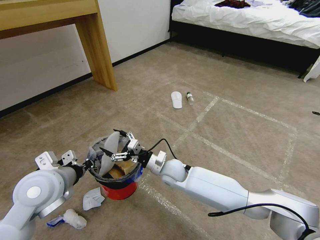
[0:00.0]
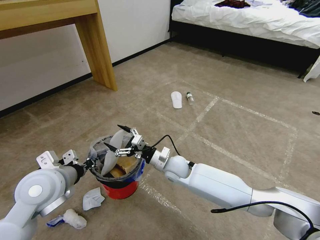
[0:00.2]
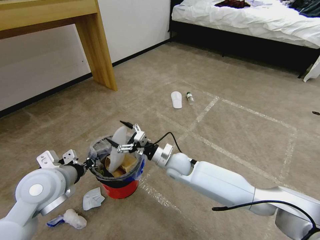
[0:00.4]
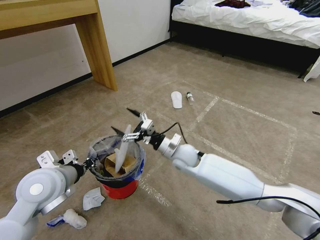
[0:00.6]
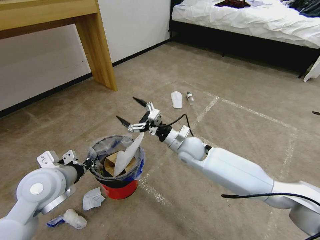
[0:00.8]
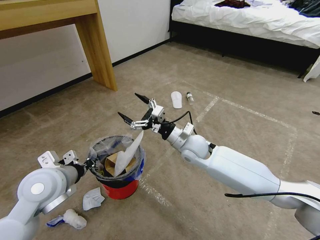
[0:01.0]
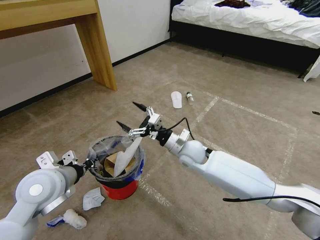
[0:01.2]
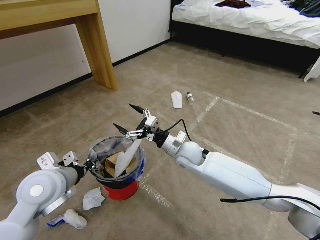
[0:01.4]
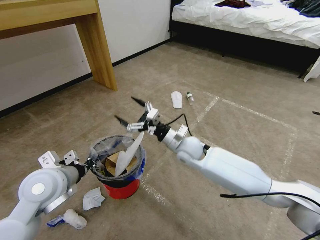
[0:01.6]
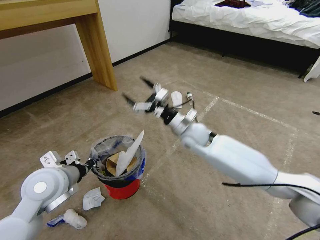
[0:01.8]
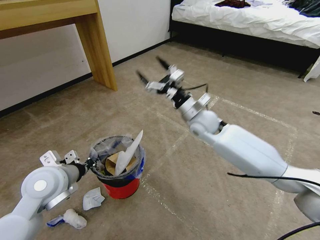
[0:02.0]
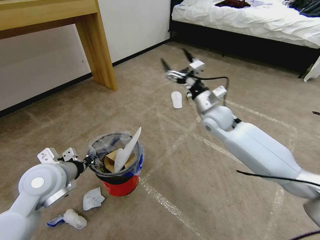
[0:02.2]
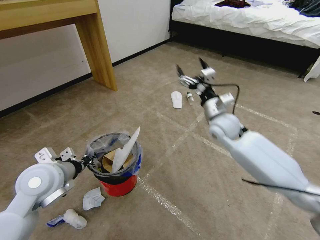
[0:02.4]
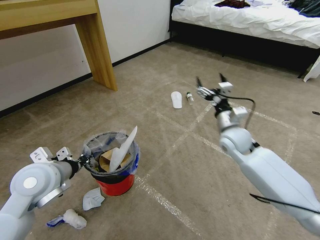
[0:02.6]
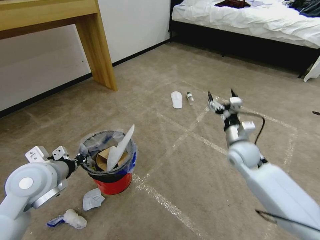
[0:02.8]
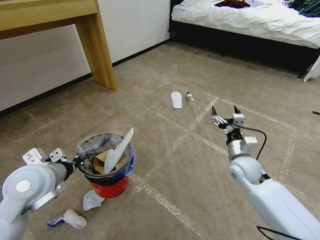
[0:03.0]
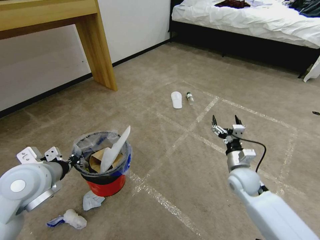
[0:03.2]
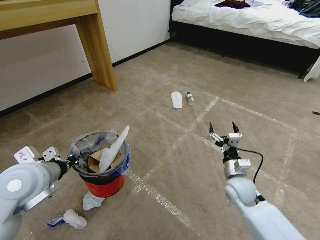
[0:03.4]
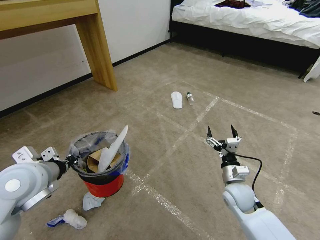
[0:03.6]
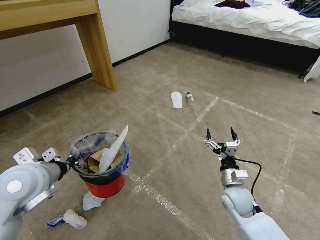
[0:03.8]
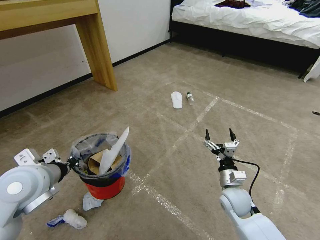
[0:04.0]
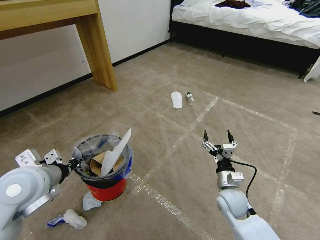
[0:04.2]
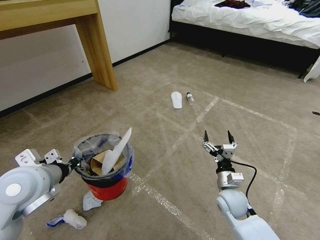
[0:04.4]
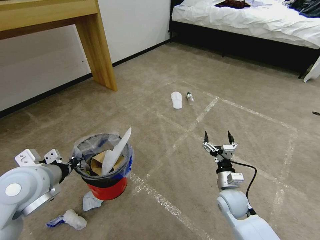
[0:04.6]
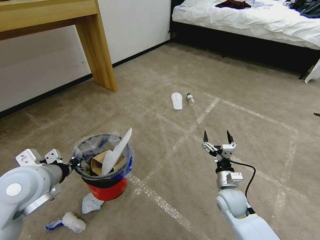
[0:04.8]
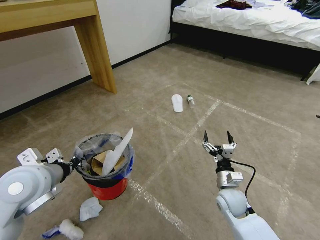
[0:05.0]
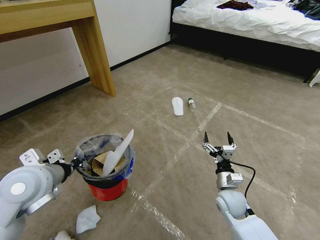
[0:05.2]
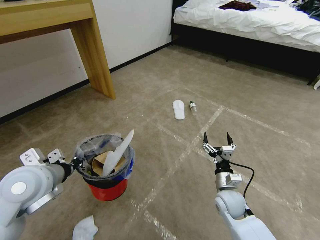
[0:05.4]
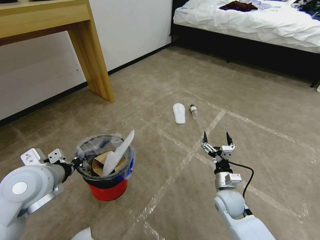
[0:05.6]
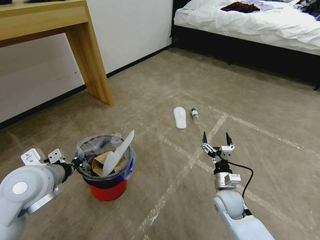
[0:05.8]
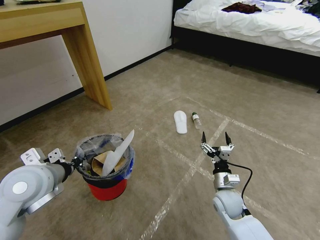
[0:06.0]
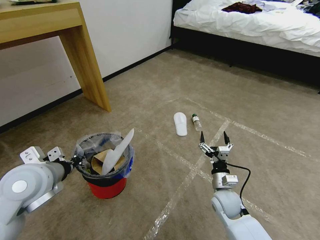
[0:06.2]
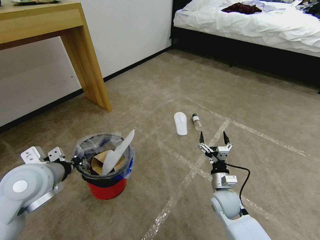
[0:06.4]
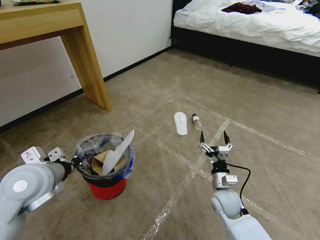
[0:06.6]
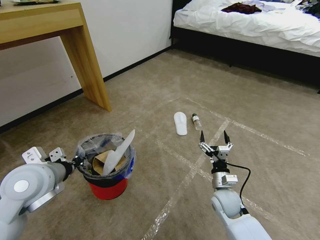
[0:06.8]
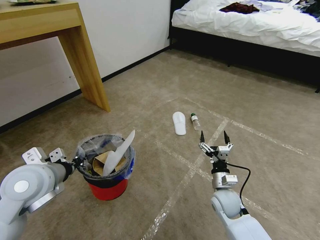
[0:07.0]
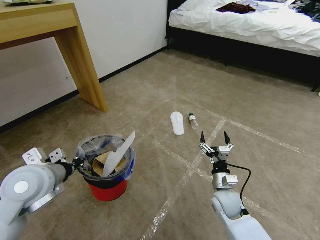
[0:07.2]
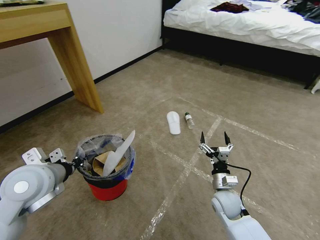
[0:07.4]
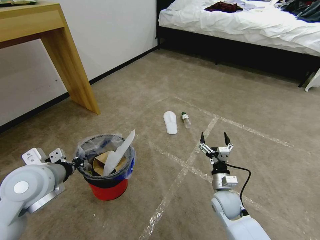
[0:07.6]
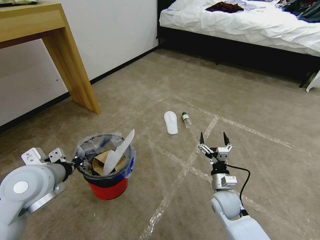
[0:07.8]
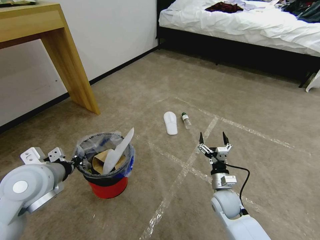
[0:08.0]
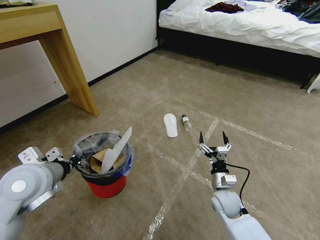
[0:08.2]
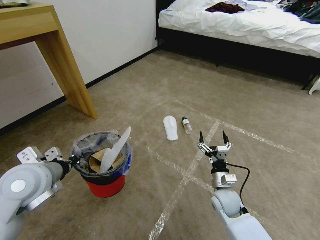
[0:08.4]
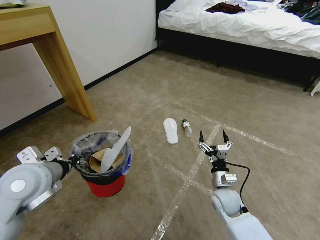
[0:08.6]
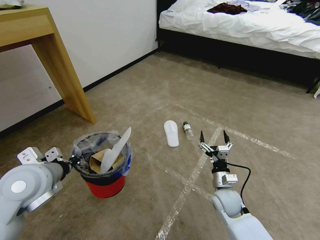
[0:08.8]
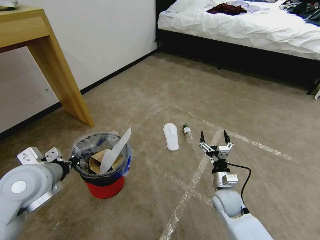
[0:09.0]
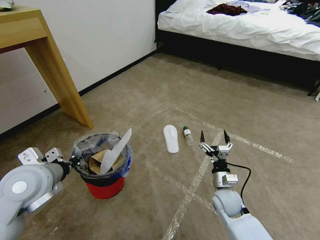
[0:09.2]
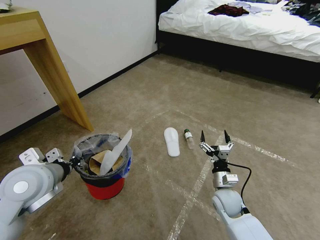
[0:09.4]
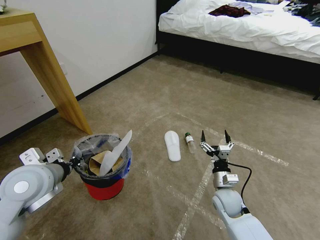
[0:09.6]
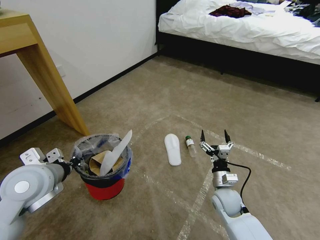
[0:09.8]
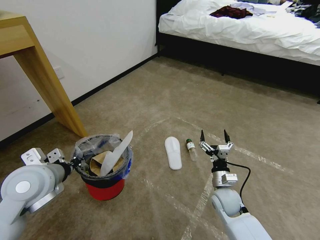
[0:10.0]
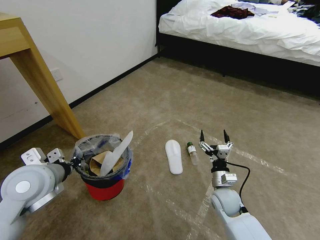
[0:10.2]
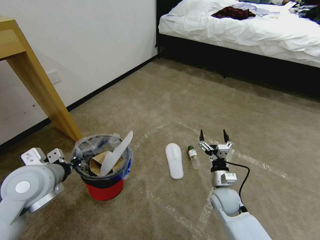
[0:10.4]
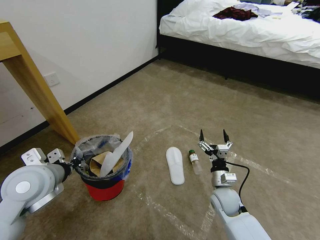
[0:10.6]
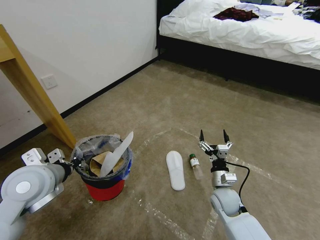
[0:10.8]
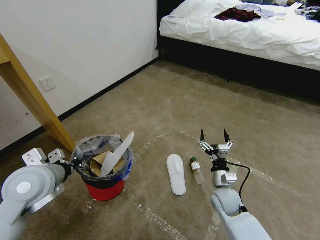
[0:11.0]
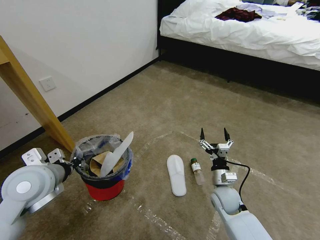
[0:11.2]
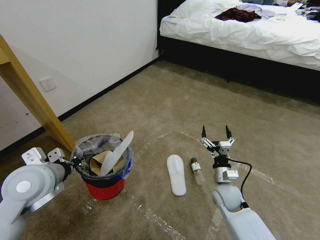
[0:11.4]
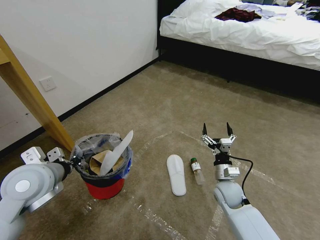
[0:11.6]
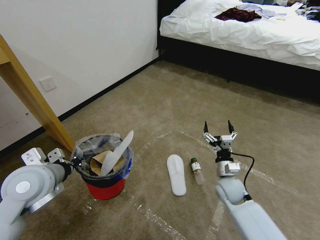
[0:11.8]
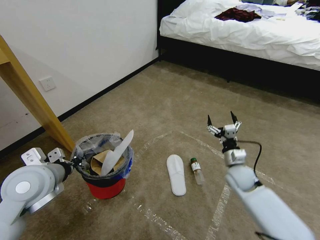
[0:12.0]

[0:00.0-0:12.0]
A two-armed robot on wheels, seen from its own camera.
Task of the whole recording: Pick up the trash bin and place the garbage on the floor into it.
0:00.0 to 0:01.6: The right gripper moves upward and to the right, approximately 10 cm.
0:01.6 to 0:03.0: The right gripper travels to the right by about 20 cm.
0:03.0 to 0:04.4: The right gripper goes approximately 10 cm downward and backward.
0:06.0 to 0:07.6: The two grippers keep their place.
0:10.4 to 0:12.0: The right gripper shifts approximately 10 cm forward and to the right.

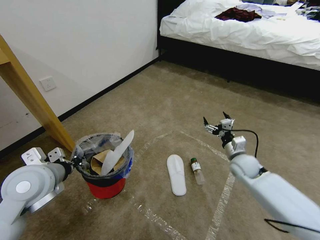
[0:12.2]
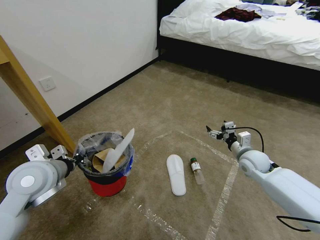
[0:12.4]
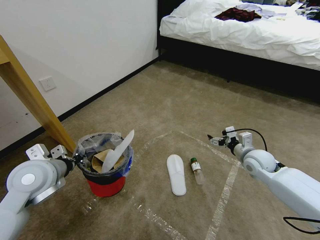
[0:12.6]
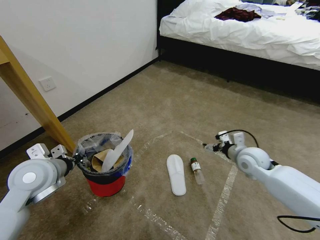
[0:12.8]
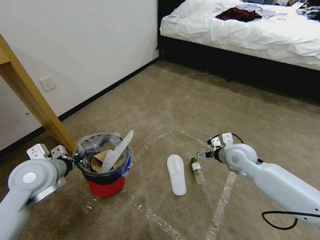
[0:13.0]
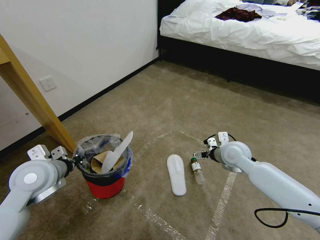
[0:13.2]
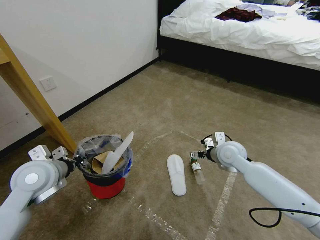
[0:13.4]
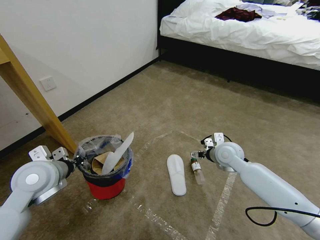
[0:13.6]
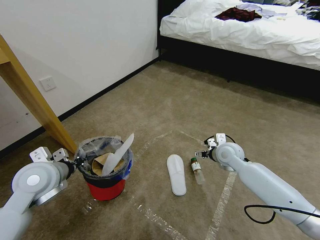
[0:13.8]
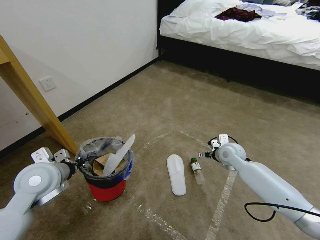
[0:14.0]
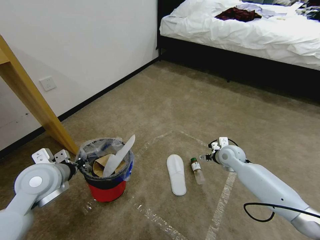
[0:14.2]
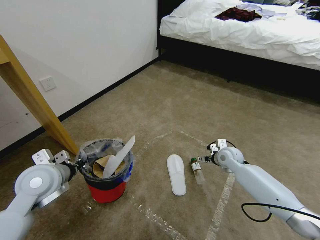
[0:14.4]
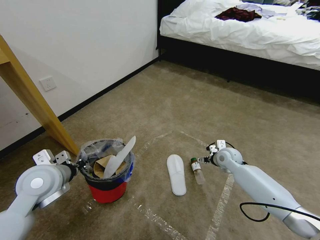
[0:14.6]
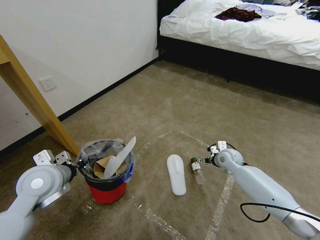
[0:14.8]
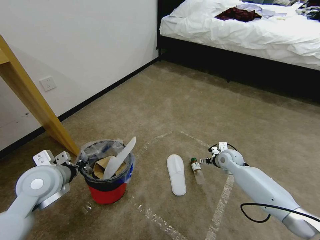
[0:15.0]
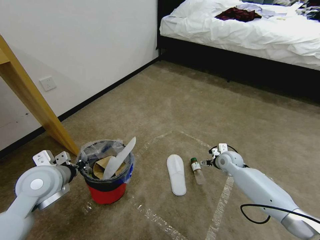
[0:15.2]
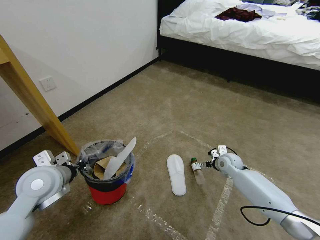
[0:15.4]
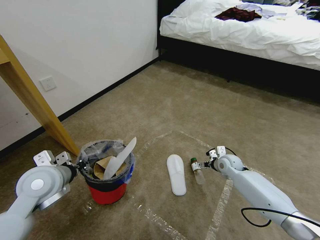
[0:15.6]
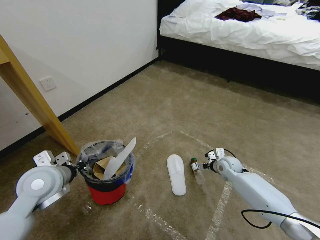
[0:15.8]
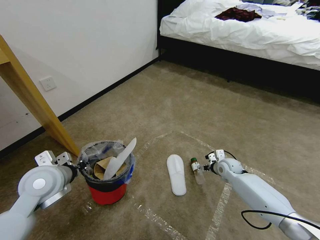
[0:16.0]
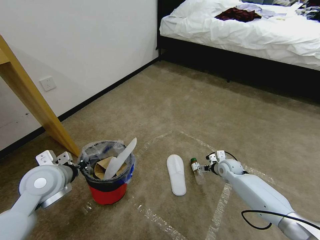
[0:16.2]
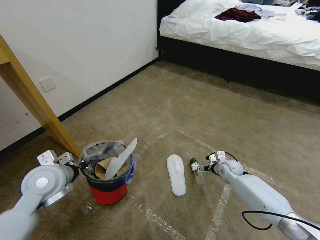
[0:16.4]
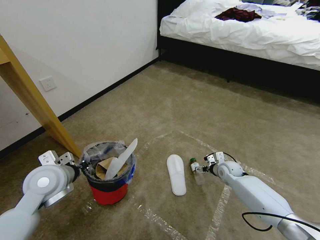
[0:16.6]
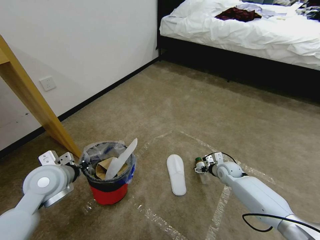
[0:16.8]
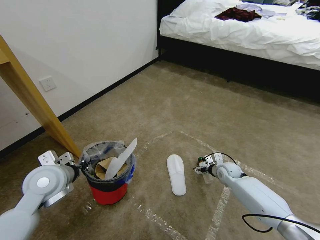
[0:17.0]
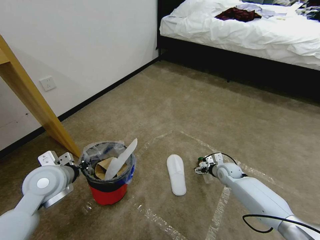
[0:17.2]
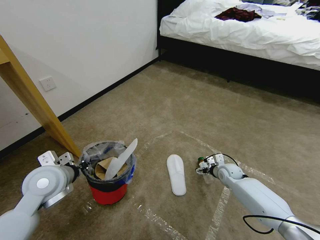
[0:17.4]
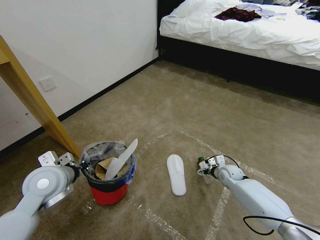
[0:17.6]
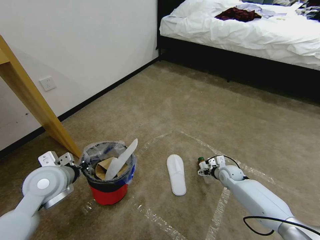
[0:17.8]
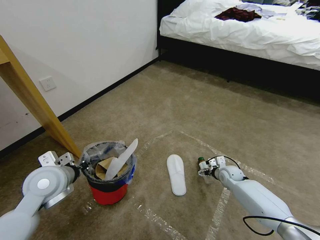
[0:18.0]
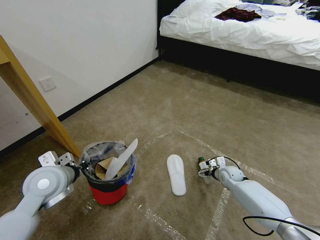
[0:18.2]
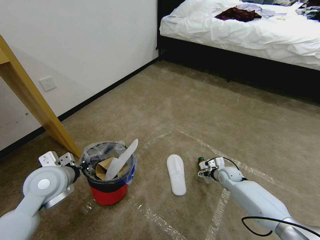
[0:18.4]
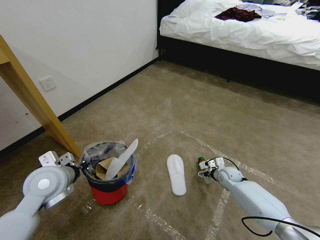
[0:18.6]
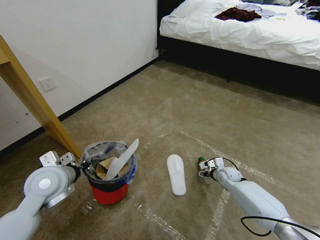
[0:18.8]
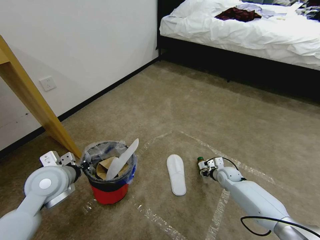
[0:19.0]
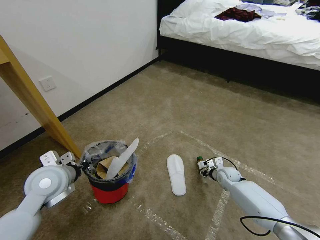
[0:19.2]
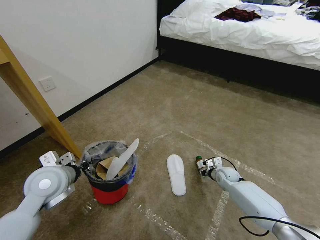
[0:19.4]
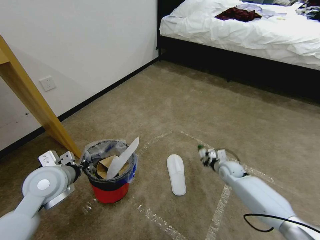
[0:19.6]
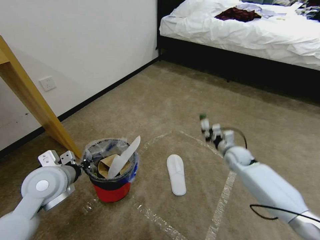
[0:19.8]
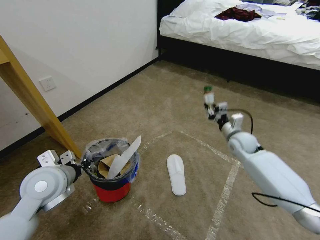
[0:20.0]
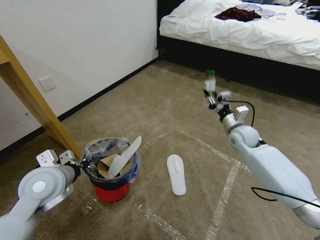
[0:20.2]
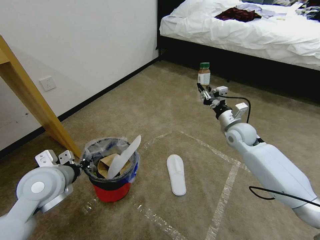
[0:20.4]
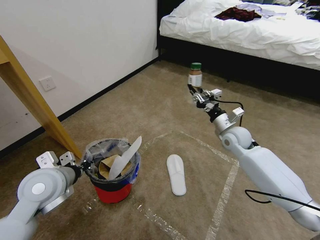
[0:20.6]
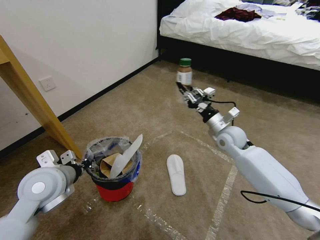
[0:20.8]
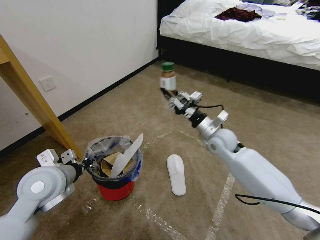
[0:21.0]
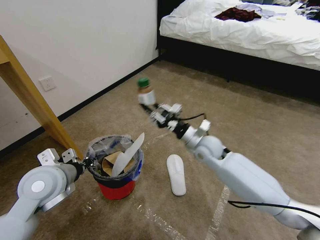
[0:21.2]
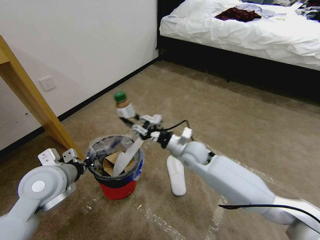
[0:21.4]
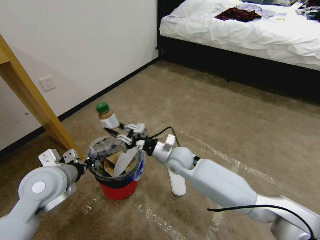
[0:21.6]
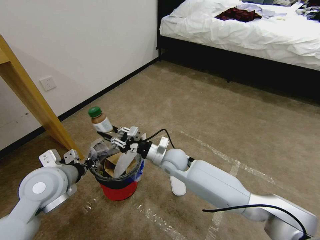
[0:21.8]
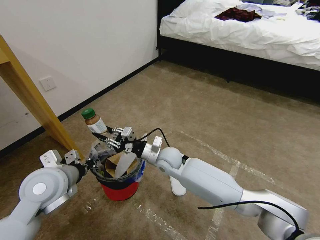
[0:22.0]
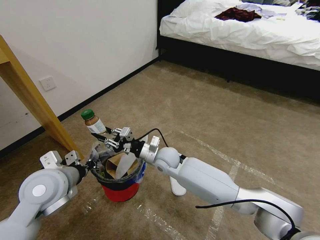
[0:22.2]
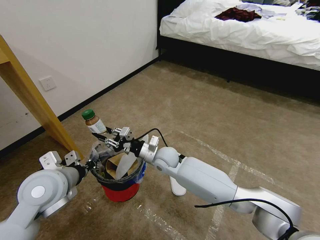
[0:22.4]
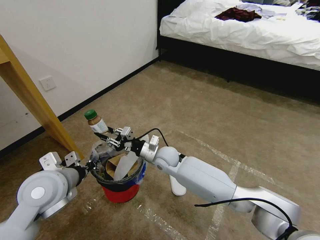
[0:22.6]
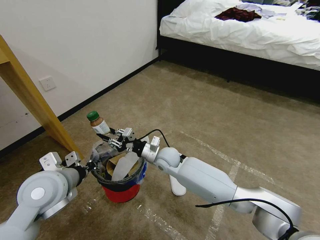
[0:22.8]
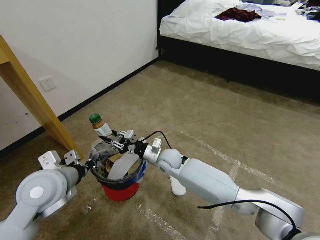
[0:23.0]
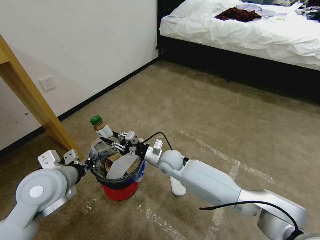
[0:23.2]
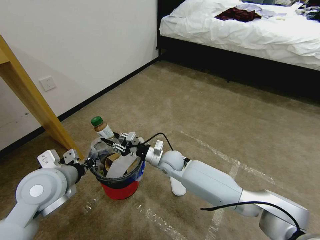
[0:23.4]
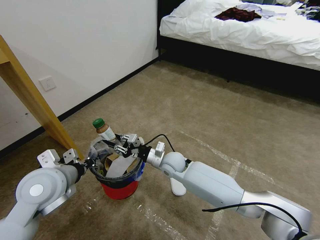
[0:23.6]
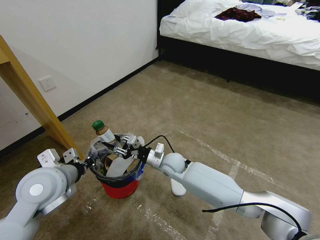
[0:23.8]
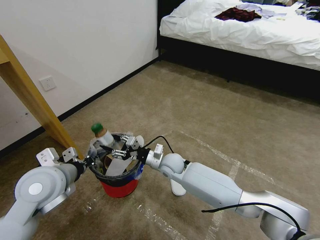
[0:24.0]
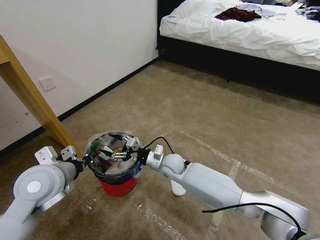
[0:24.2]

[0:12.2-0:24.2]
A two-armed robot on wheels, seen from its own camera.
Task of the whole recording: Pick up the trash bin and place the garbage on the floor into it.
0:12.2 to 0:13.8: The right gripper goes some 5 cm to the left.
0:13.8 to 0:15.2: The right gripper shifts approximately 10 cm downward.
0:15.2 to 0:16.6: The right gripper goes approximately 5 cm downward.
0:16.6 to 0:18.2: The grippers make only small movements.
0:18.2 to 0:19.8: The right gripper moves upward, about 10 cm, and closes its fingers.
0:19.8 to 0:21.2: The right gripper shifts roughly 20 cm to the left and upward.
0:21.2 to 0:22.6: The right gripper heads to the left and downward, covering about 15 cm.
0:22.6 to 0:24.2: The right gripper opens its fingers.
